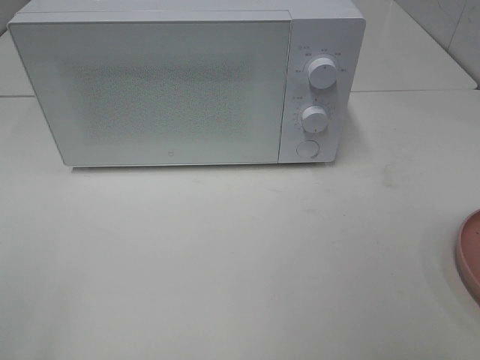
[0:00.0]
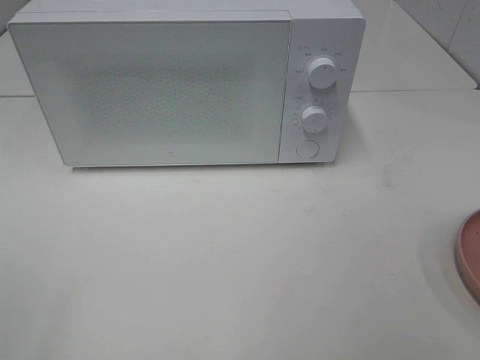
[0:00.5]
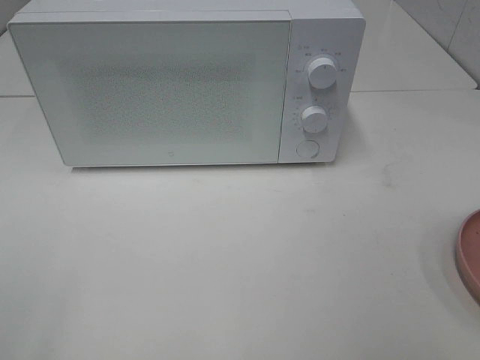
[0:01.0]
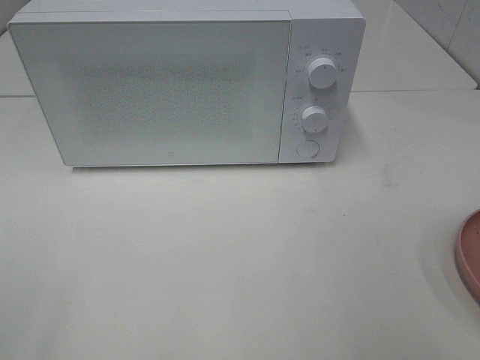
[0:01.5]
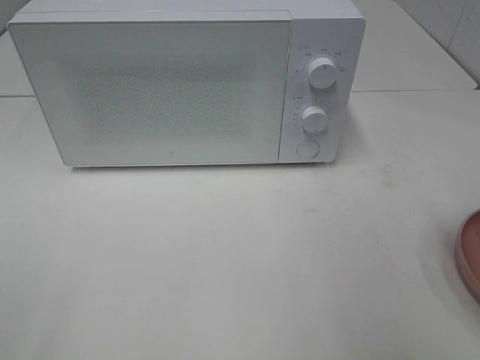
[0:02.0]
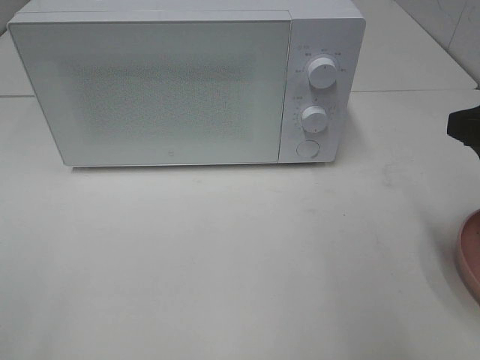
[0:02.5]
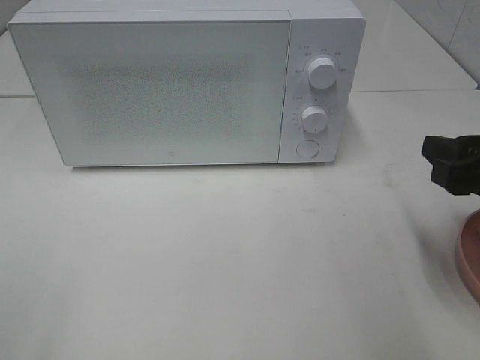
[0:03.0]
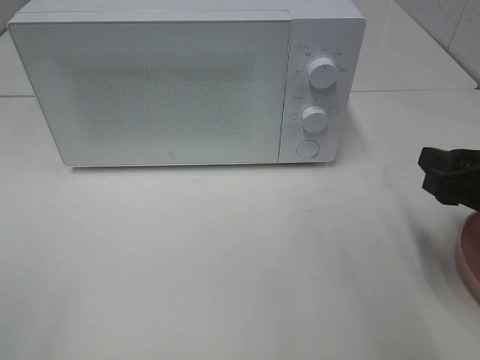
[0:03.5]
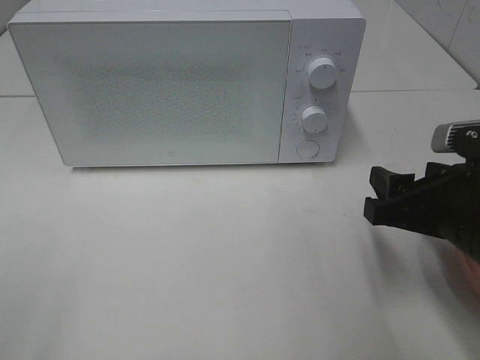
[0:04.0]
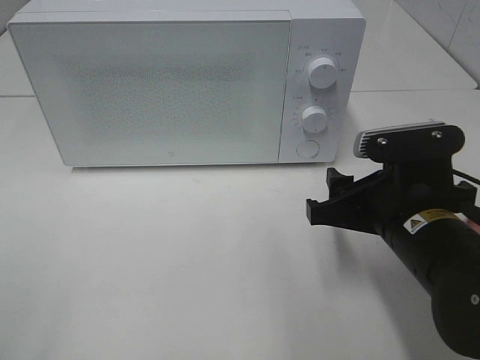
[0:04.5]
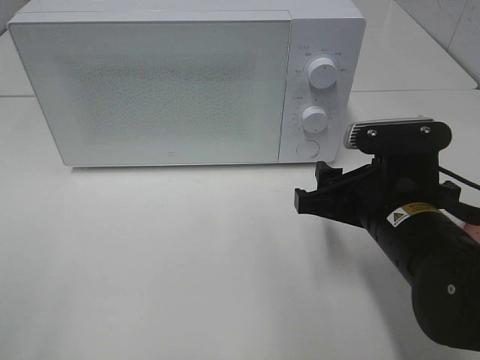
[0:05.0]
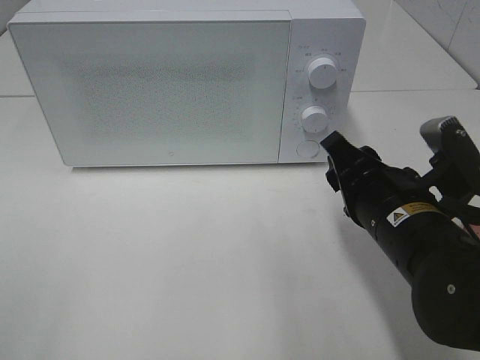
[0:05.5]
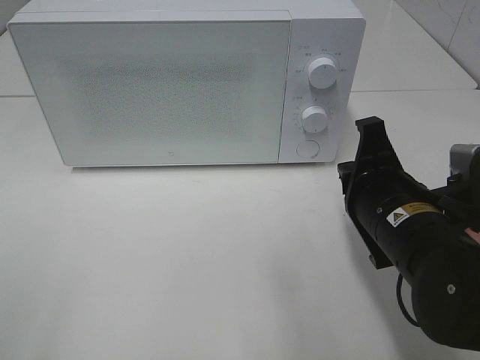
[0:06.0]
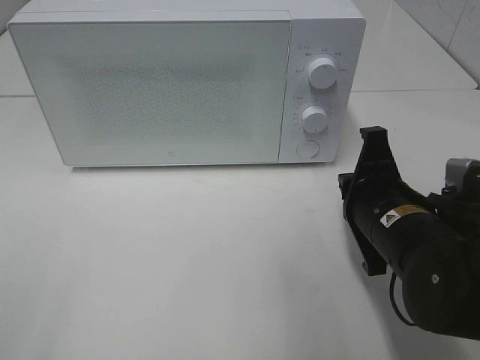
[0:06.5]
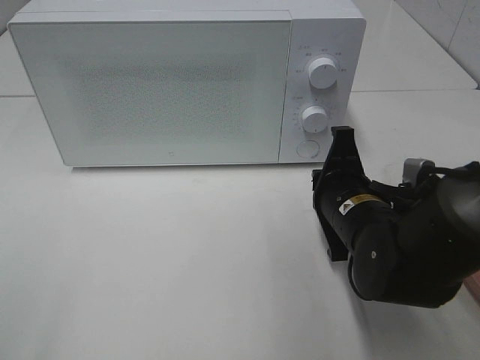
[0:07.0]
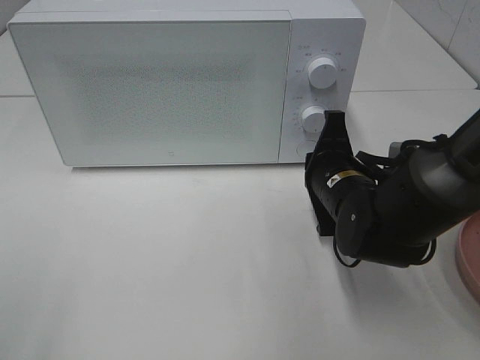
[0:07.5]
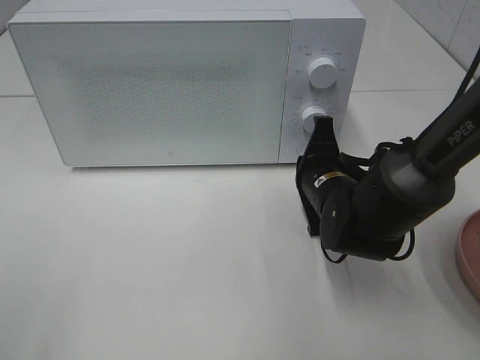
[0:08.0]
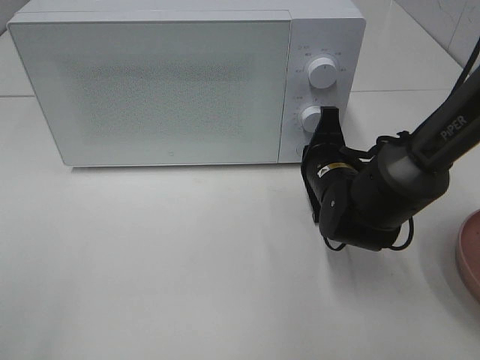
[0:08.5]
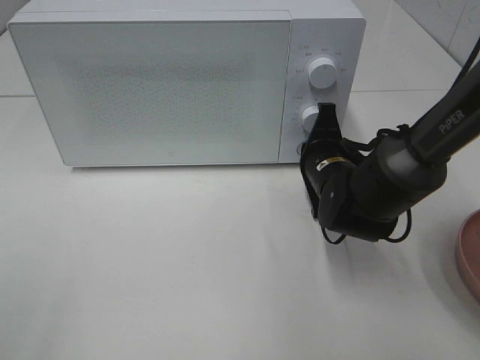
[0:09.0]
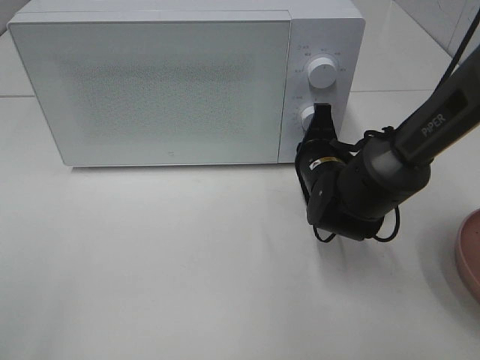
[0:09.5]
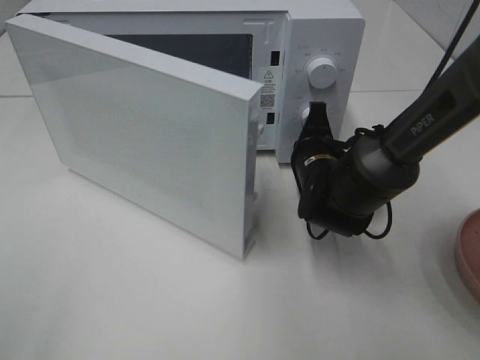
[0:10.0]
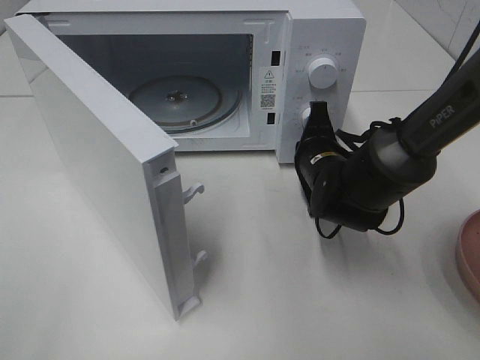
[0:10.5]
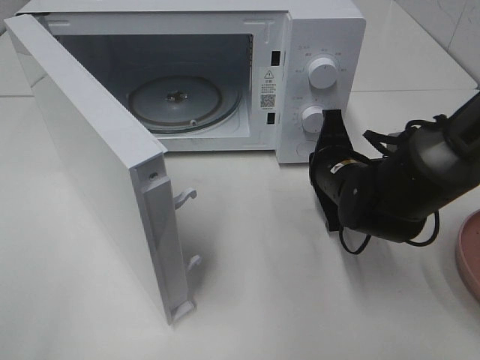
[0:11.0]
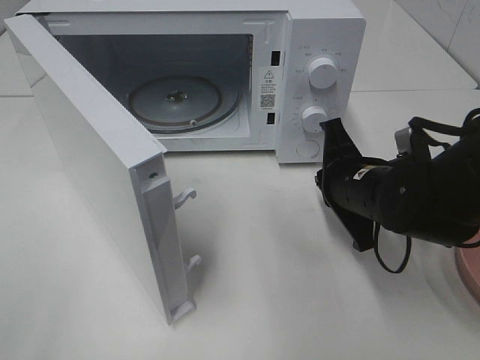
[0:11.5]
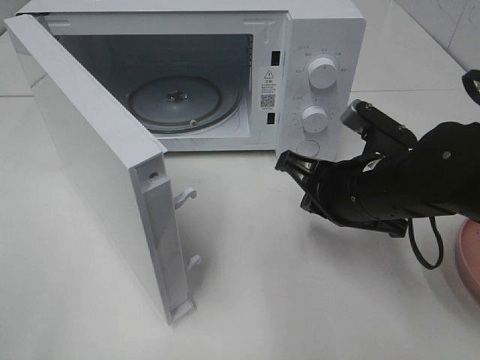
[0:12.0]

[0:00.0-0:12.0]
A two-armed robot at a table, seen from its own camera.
Task of the whole recording: Heat the burger.
Step, 0:00.0 to 0:10.5: Right hand: press the switch.
0:02.0 to 0:04.0: The right gripper shifts about 15 cm downward, to the left and forward.
0:04.0 to 0:06.0: The right gripper shifts about 5 cm to the left, and closes.
0:06.0 to 0:08.0: The right gripper is displaced forward and downward by approximately 15 cm.
0:10.0 to 0:12.0: The right gripper travels backward and upward by roughly 10 cm.

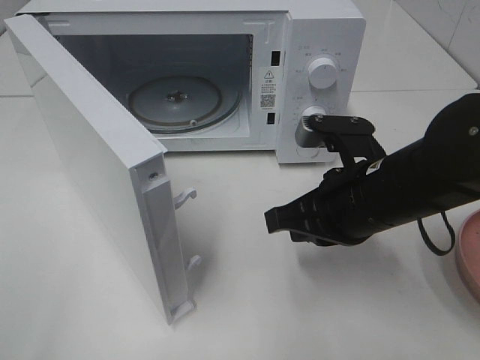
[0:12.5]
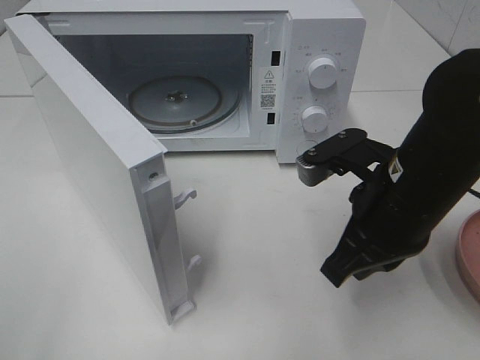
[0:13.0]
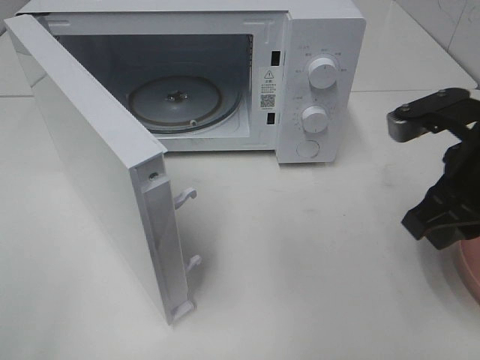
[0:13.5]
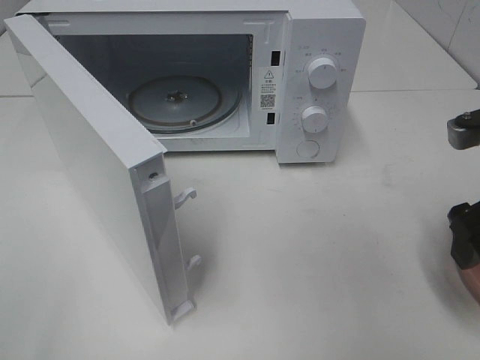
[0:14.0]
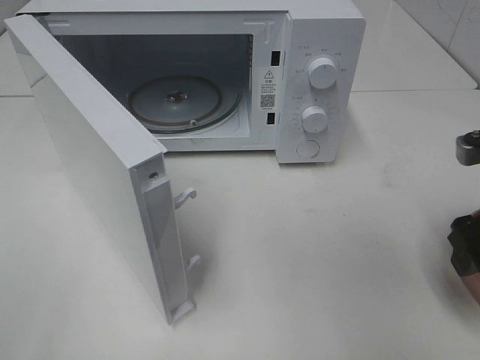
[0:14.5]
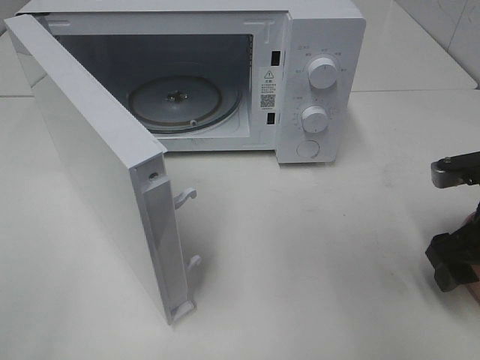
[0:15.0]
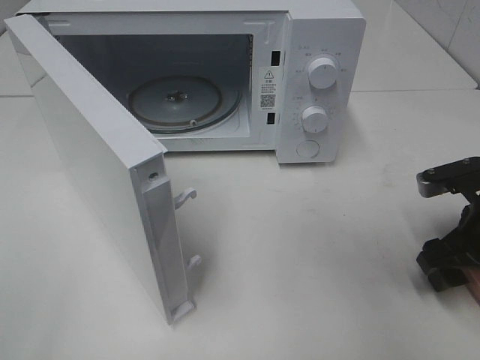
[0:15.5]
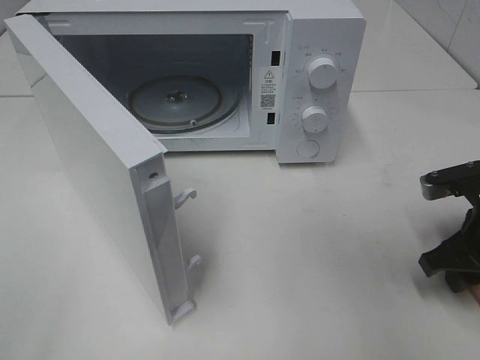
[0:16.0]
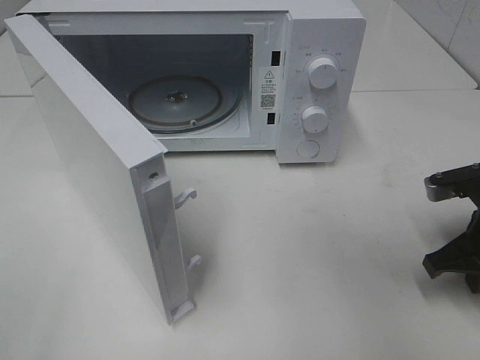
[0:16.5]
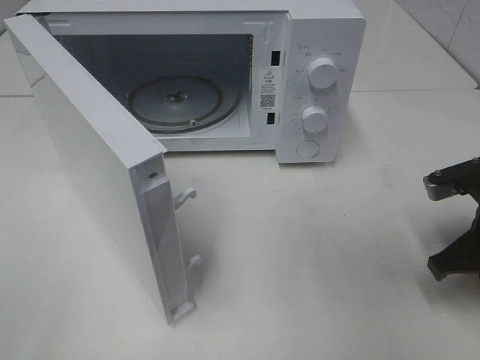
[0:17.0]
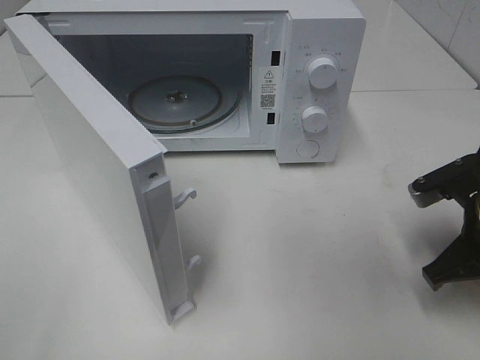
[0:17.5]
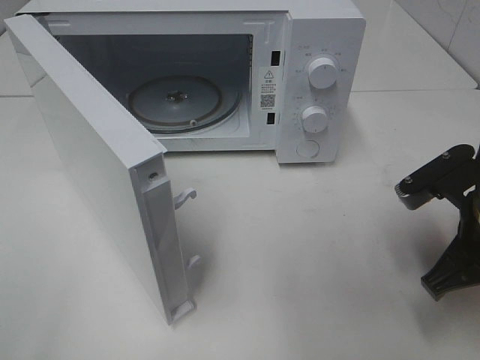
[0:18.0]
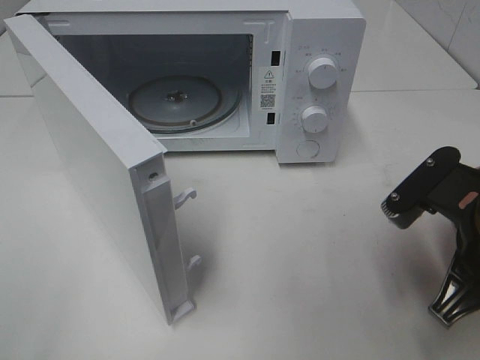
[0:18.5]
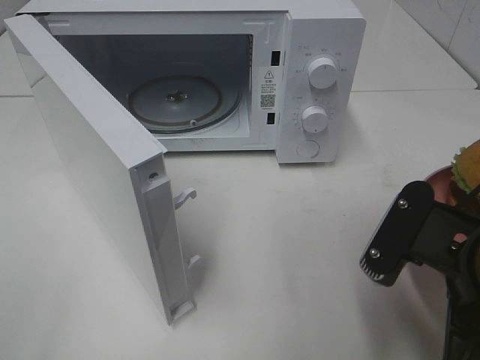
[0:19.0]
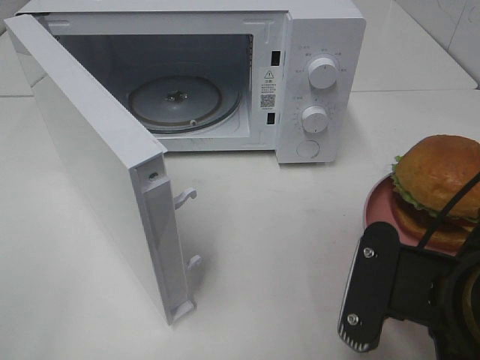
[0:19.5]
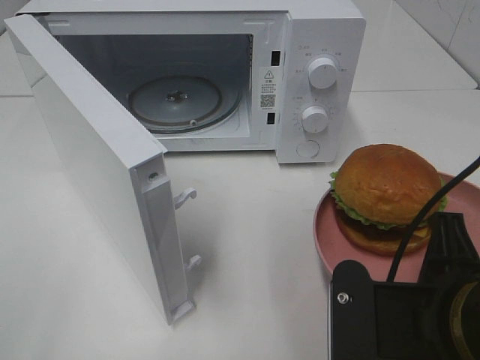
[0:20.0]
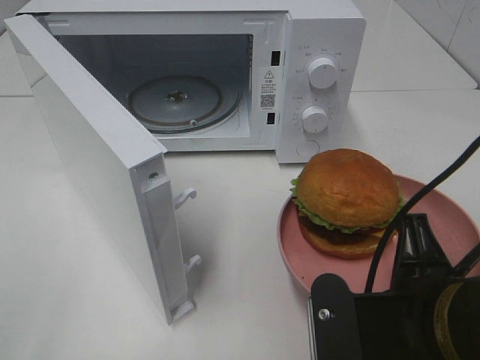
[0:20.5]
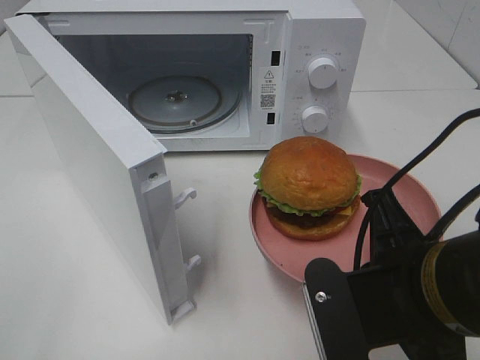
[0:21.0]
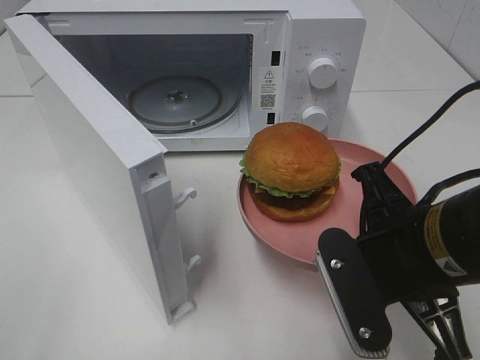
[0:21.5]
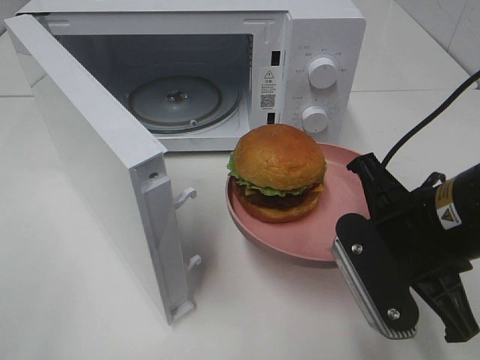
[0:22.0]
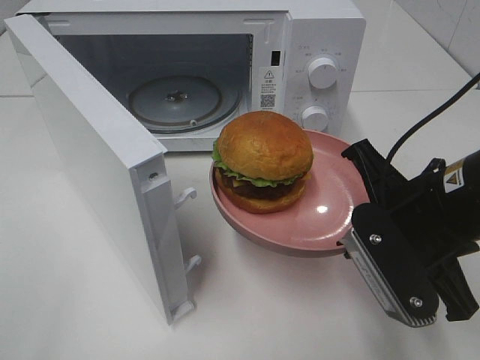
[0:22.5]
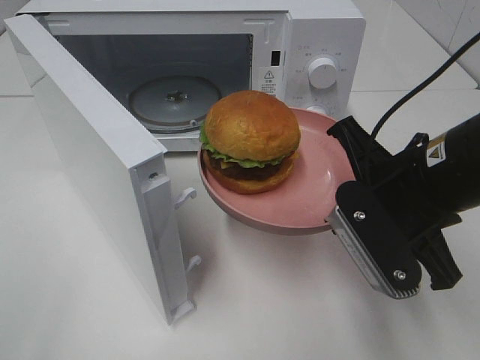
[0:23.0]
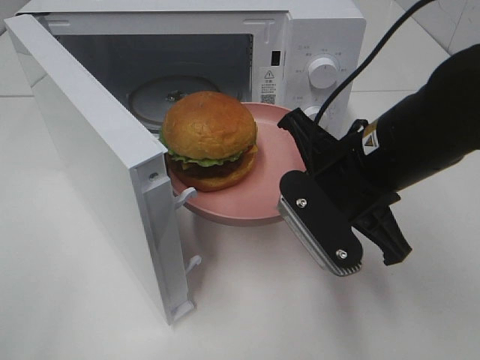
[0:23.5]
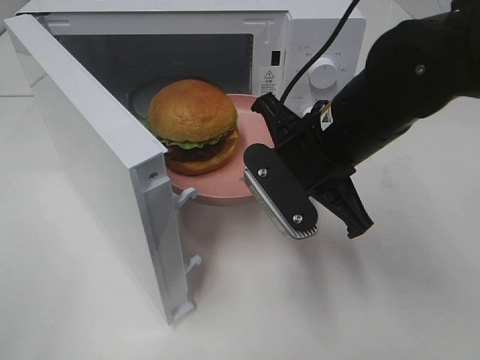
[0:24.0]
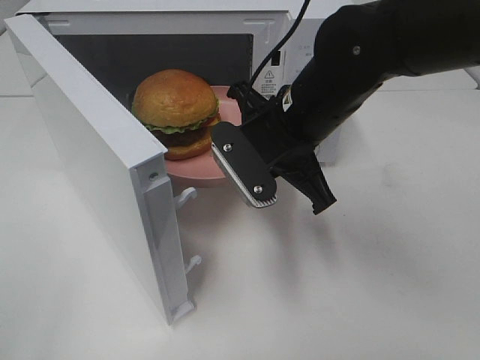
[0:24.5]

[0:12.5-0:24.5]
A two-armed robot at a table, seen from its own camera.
Task of the whole recording: Heat the burger.
Step, 0:12.5 to 0:16.5: Right hand: grab the plate with the hamburger.
0:12.5 to 0:14.5: The right gripper is displaced to the right by roughly 15 cm, and opens up.
0:14.5 to 0:16.5: The right gripper travels downward by about 5 cm, and closes up.
0:16.5 to 0:18.5: The right gripper shifts approximately 10 cm to the left, backward and upward.
0:18.5 to 0:20.5: The right gripper is displaced backward and to the left by about 10 cm.
0:20.5 to 0:22.5: The right gripper goes roughly 10 cm forward.
0:22.5 to 0:24.5: The right gripper goes about 15 cm forward and to the left.

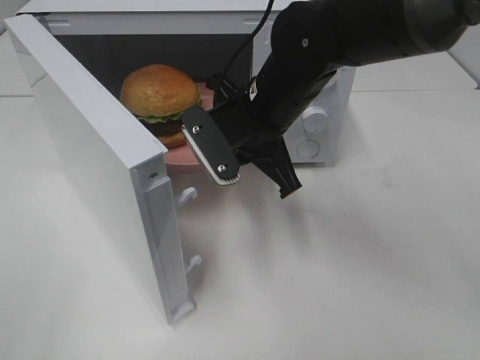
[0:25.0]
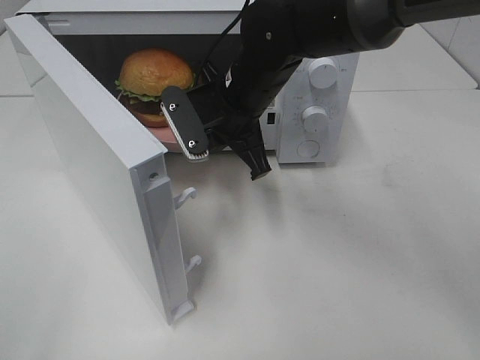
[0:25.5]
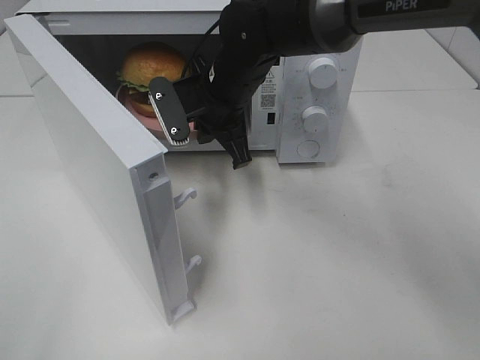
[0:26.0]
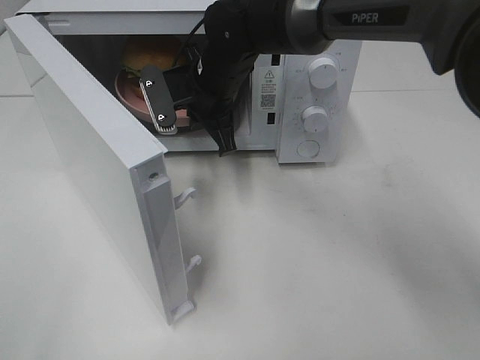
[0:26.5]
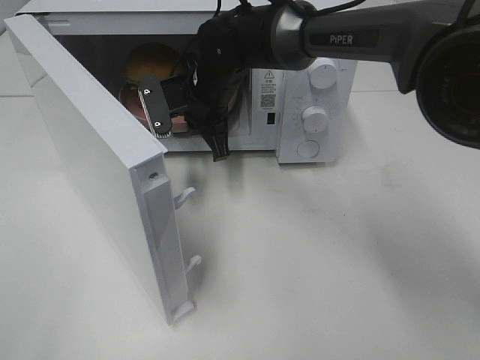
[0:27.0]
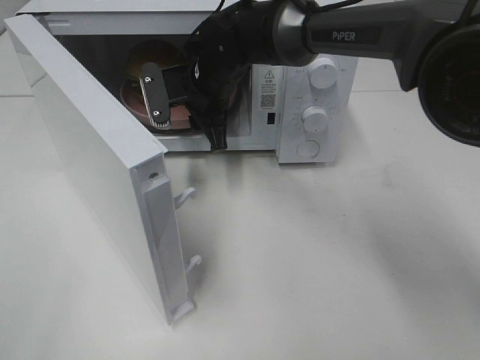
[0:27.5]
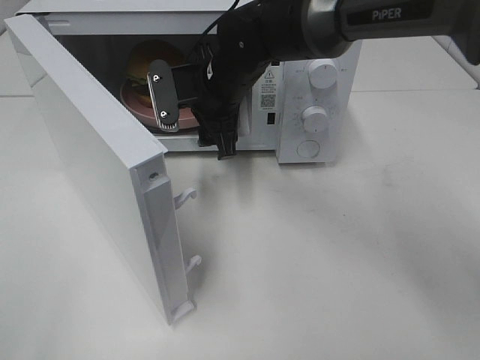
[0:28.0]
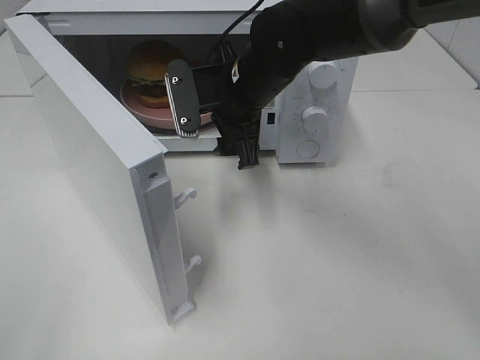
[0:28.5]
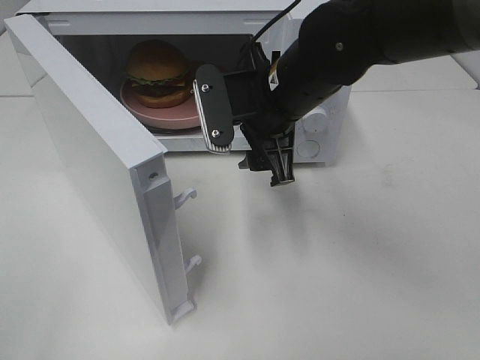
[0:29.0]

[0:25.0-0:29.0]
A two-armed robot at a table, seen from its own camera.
Task of the whole recording: Heat the burger.
Step, 0:25.0 to 0:27.0: Right hand: place the plate in the microwave.
0:25.0 to 0:27.0: The right gripper goes some 10 cm forward and to the left.
0:27.0 to 0:29.0: The right gripper is displaced backward, to the right and upward by about 15 cm, and opens.
